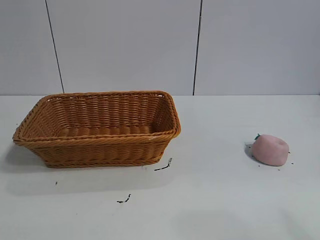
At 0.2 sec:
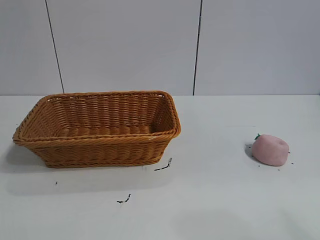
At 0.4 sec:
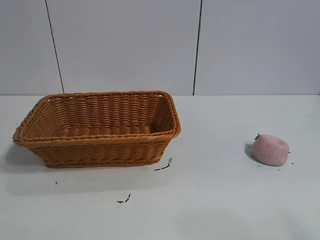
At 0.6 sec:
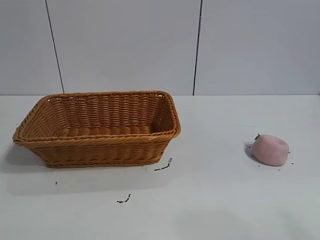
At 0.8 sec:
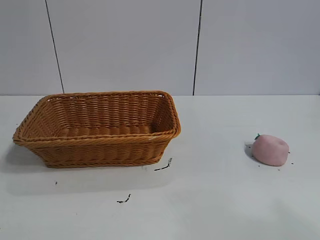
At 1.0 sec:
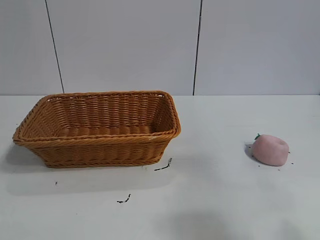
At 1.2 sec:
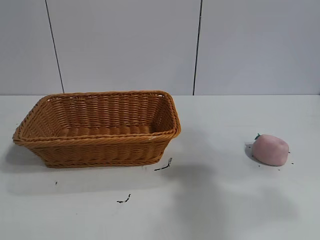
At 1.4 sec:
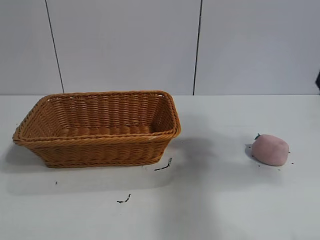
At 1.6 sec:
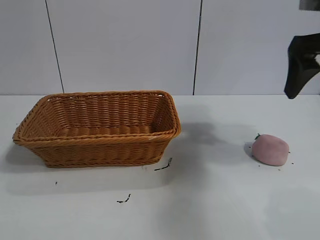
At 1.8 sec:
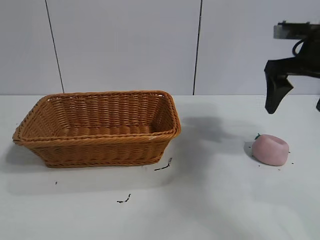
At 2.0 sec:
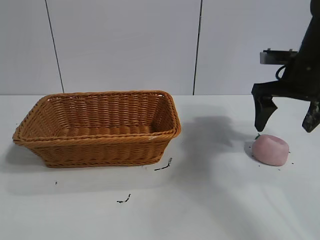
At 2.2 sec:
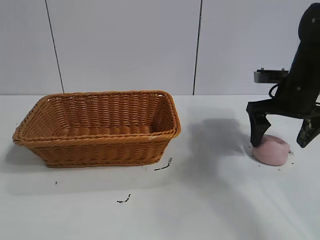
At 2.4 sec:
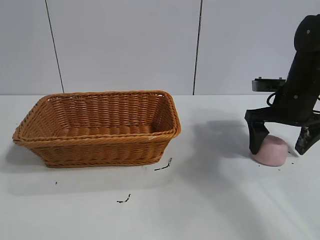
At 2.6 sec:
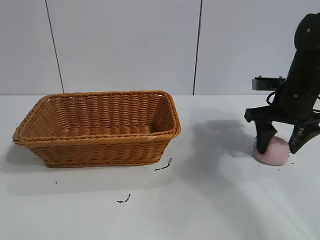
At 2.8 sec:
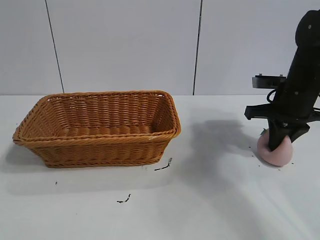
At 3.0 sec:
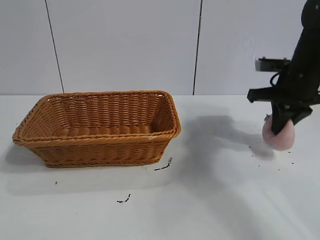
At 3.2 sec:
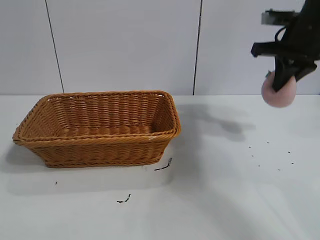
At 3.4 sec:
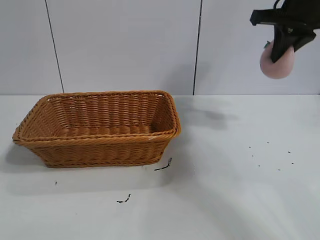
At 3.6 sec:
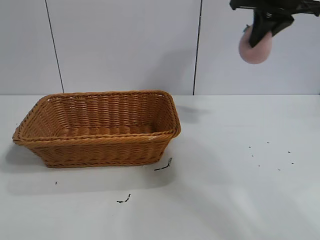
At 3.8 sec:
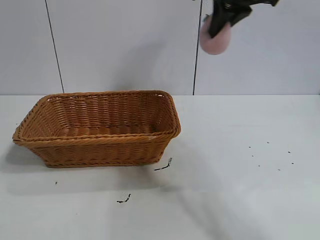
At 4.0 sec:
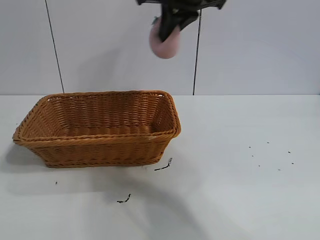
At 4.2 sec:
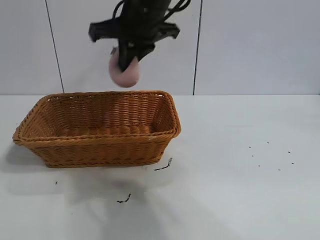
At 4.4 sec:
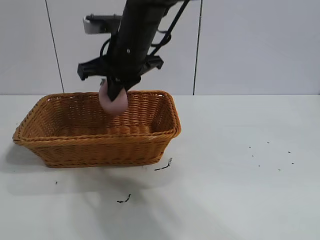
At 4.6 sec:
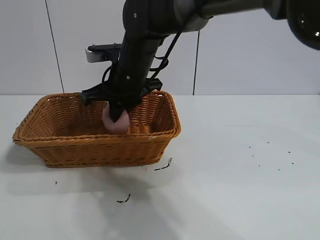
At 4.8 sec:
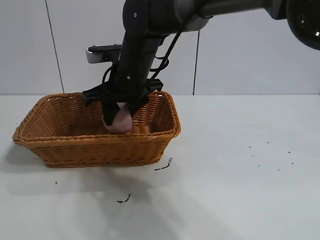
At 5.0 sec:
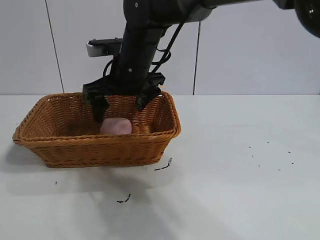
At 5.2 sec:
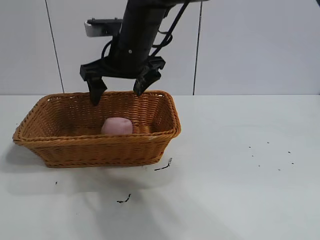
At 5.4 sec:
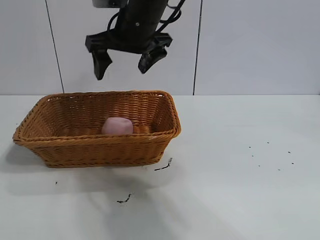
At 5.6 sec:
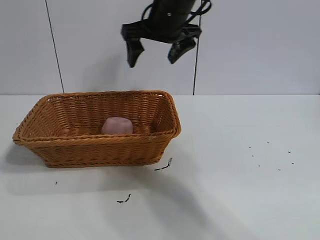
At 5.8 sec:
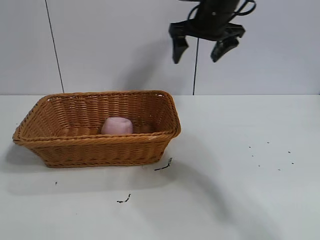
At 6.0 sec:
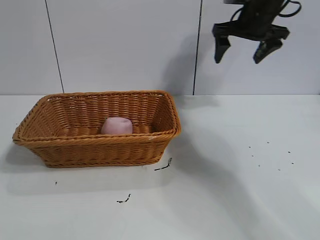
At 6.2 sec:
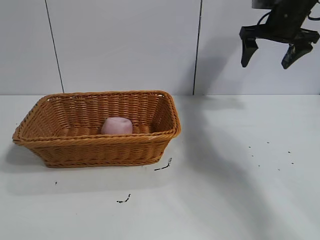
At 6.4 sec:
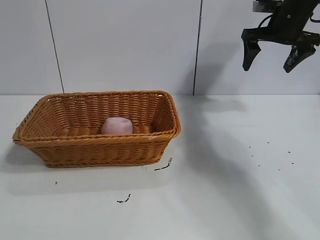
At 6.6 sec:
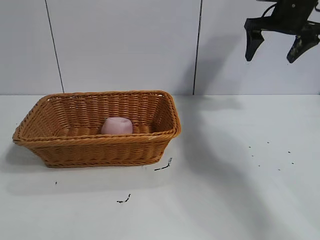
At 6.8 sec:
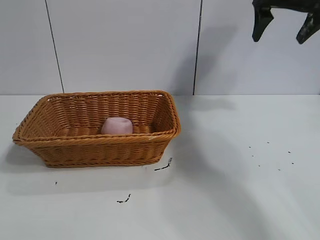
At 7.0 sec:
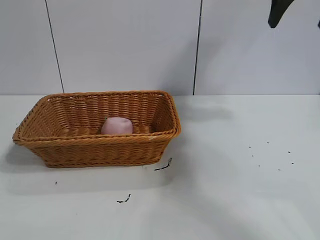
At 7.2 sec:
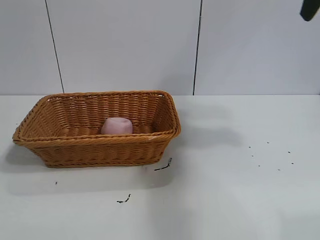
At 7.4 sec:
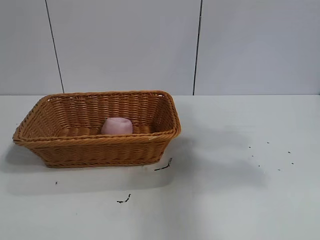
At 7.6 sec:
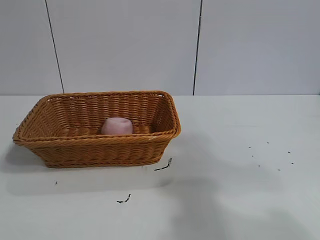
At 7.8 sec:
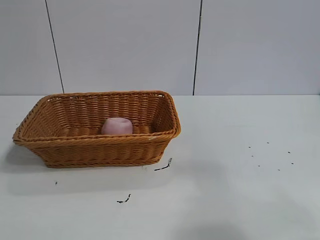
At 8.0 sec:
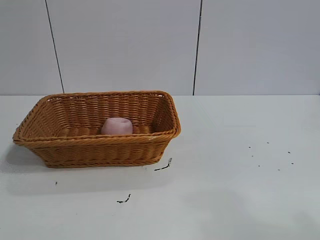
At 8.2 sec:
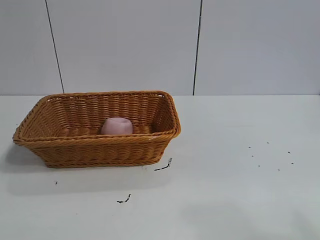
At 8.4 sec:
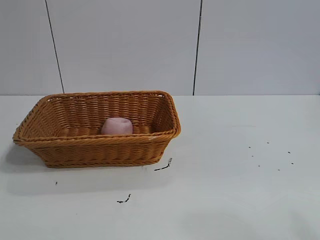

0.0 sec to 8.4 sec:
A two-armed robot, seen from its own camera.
Task of the whole recording: pick up the peach and put it into the basket.
Step, 0.8 sec to 2.6 sec: Grasp the peach with right gripper.
Step, 3.0 sec to 4.8 sec: Place the peach in the basket with right gripper.

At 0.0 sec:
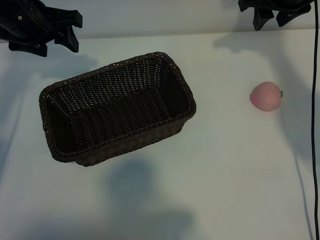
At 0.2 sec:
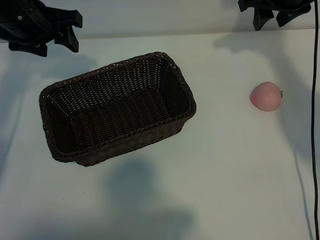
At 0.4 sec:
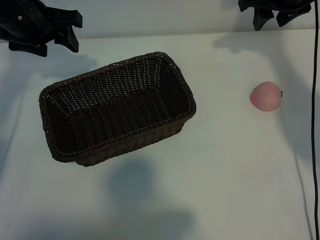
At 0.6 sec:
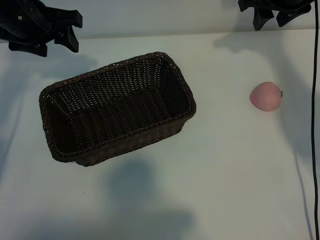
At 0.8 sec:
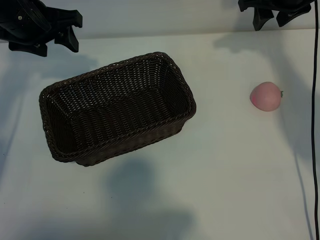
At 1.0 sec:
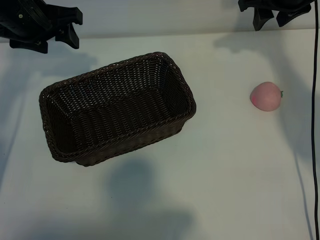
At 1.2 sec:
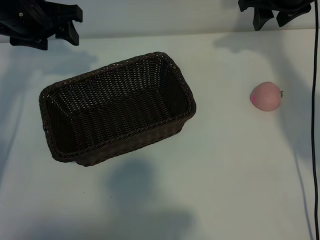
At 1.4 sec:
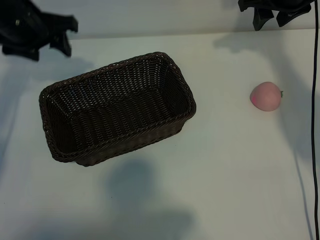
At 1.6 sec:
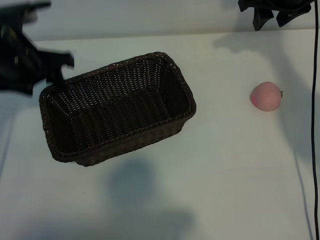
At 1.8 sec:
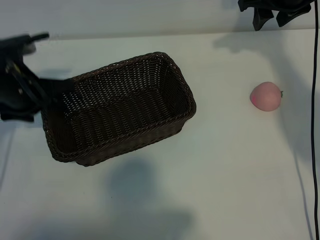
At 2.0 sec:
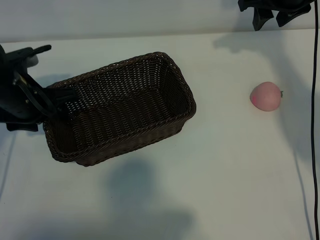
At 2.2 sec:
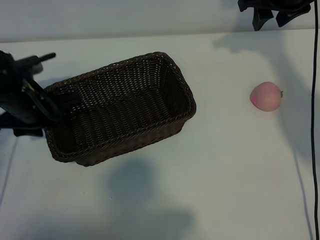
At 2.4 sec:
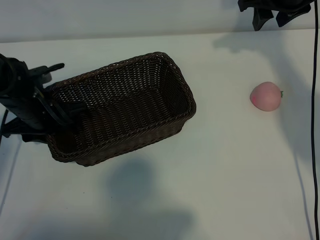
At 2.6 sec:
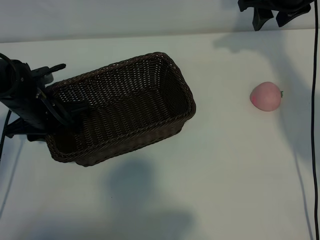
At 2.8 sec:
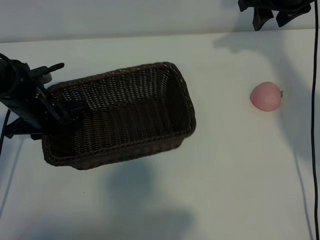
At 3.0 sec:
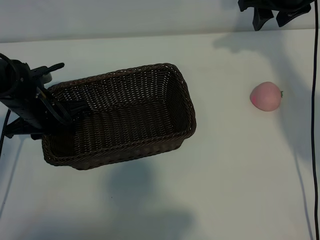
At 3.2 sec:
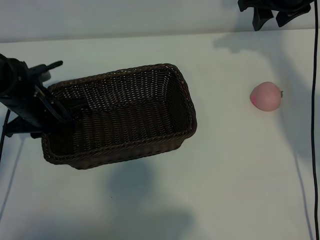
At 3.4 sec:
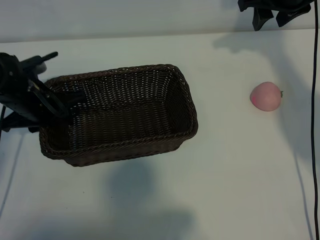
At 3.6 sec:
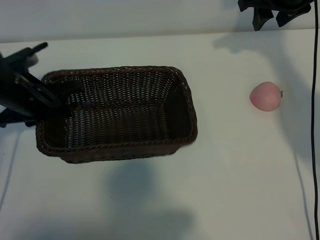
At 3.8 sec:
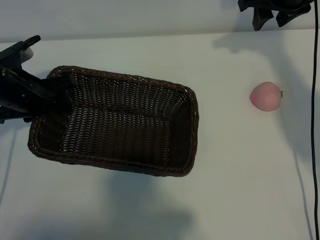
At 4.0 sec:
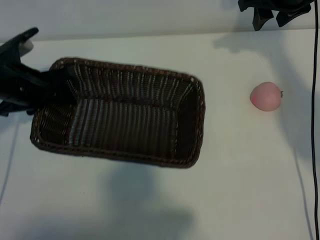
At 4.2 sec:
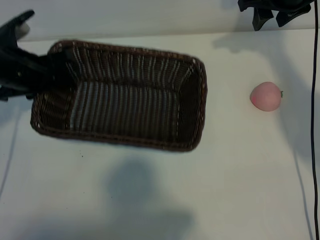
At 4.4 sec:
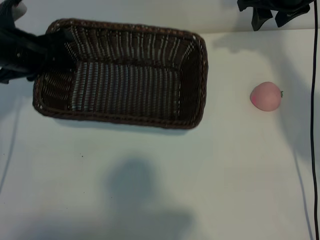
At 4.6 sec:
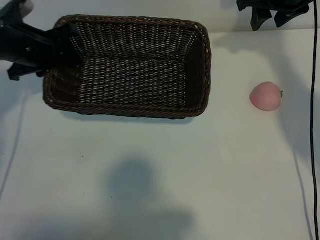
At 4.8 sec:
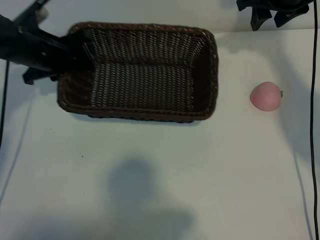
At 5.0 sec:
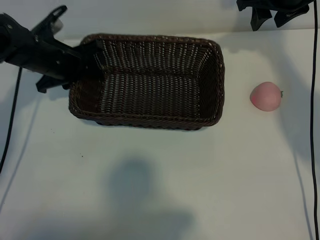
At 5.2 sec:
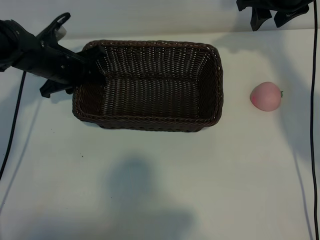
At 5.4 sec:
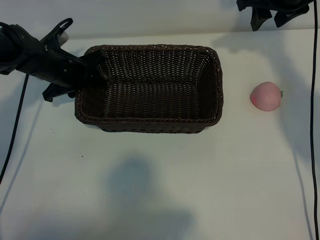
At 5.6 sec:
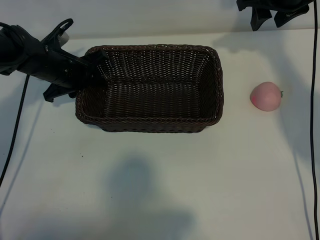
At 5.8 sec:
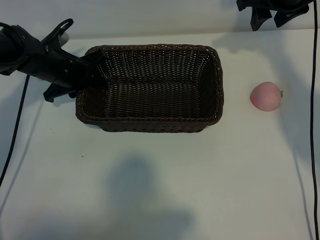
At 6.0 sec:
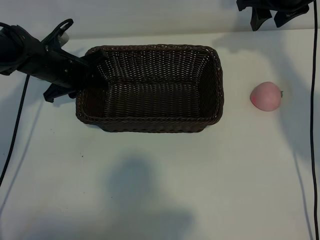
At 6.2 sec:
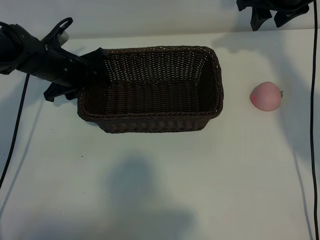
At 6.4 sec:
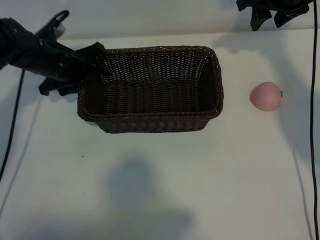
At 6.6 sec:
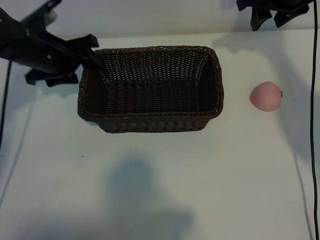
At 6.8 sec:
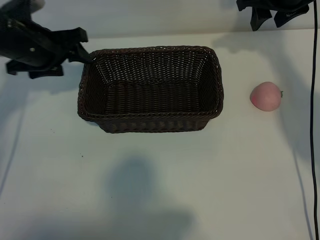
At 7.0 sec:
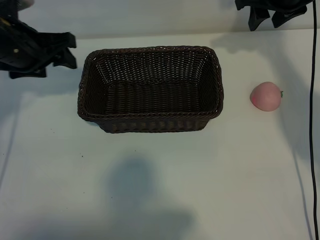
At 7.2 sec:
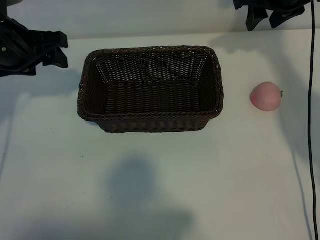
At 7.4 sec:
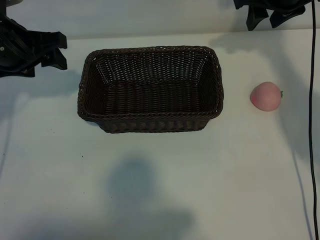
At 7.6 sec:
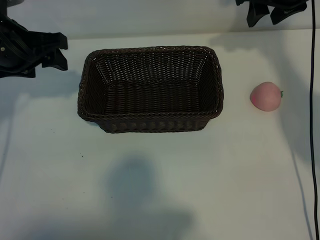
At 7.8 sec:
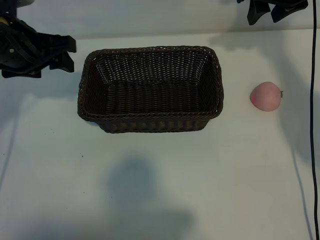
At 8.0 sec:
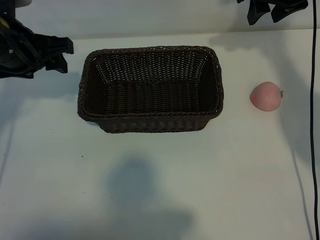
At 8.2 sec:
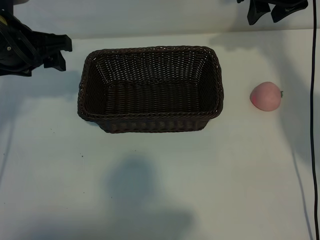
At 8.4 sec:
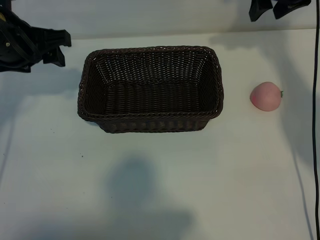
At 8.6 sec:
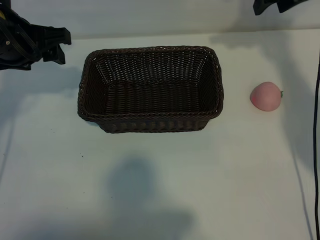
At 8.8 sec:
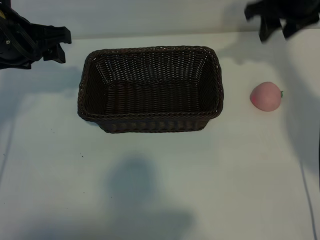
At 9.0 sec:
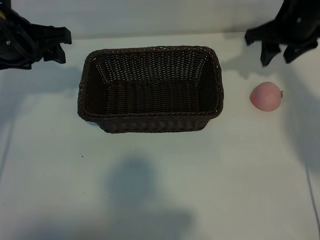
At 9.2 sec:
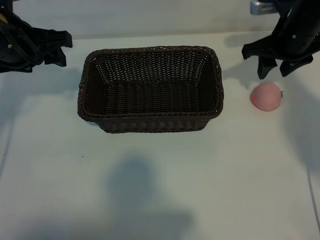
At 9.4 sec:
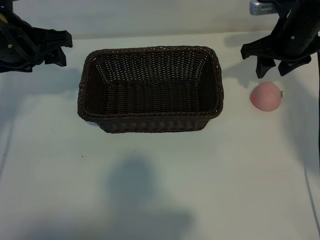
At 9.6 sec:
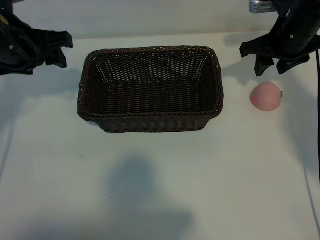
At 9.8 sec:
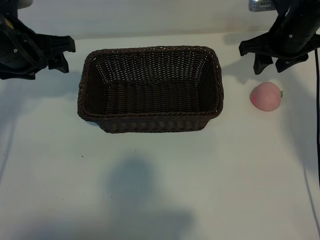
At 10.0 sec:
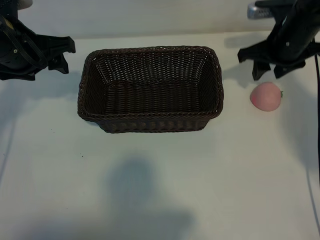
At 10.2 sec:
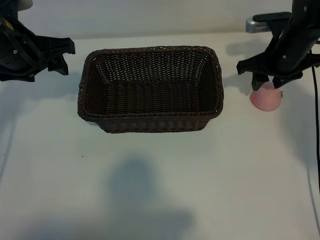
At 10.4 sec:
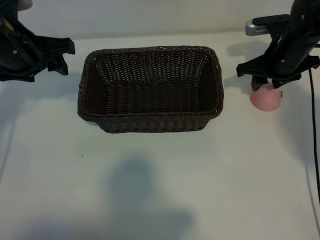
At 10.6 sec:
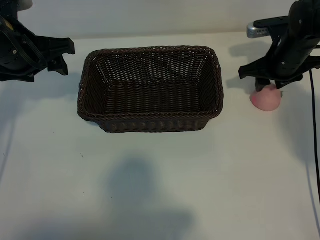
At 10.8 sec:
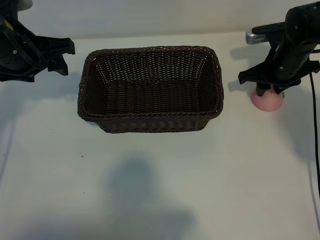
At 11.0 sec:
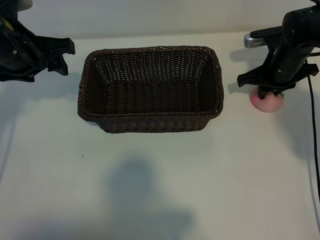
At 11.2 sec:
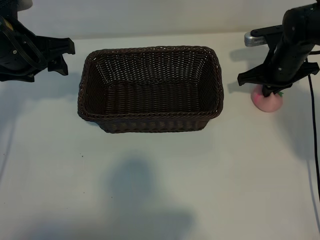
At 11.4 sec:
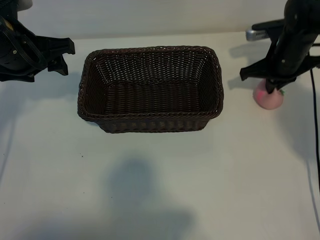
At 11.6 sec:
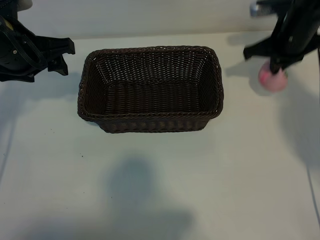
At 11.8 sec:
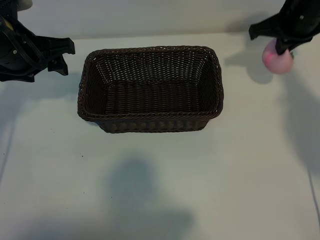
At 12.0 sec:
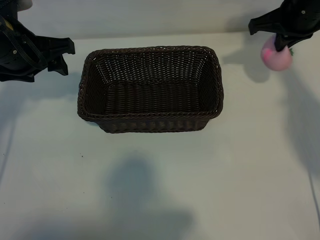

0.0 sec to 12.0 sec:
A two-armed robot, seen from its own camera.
Task of the whole recording: pick up the peach and put it into the basket.
Step, 1.0 sec to 2.8 sec: Grasp the basket with left gripper.
Step, 3.2 sec to 6.4 sec: Place the basket in the center of view with left gripper.
Step, 6.6 sec to 11.2 sec: Grasp the peach with right gripper.

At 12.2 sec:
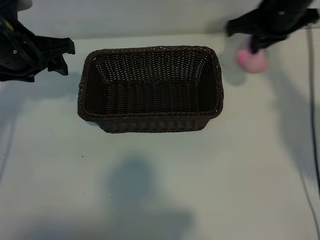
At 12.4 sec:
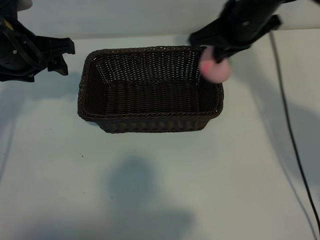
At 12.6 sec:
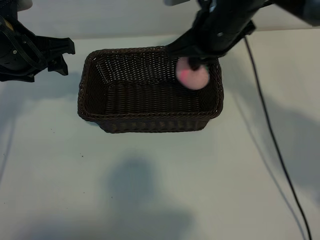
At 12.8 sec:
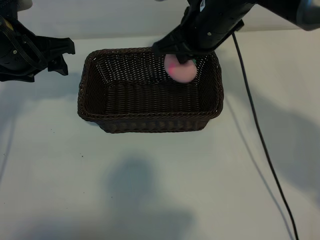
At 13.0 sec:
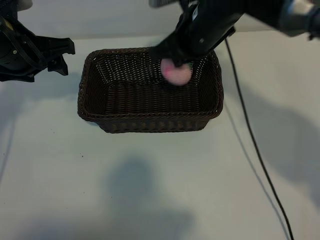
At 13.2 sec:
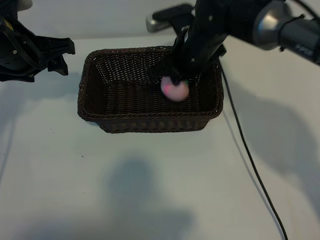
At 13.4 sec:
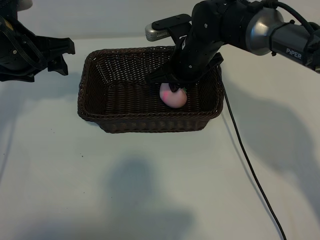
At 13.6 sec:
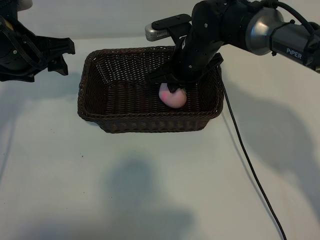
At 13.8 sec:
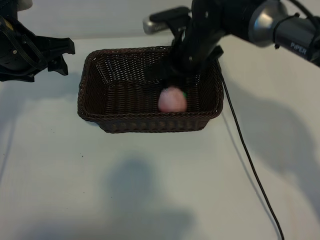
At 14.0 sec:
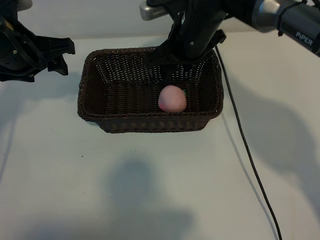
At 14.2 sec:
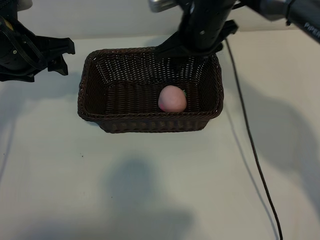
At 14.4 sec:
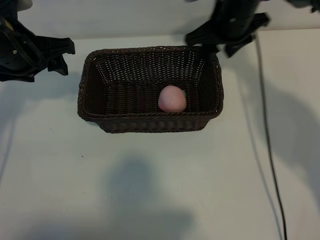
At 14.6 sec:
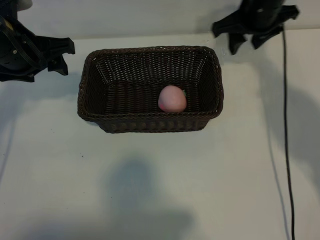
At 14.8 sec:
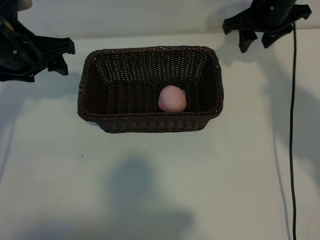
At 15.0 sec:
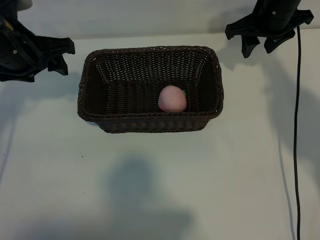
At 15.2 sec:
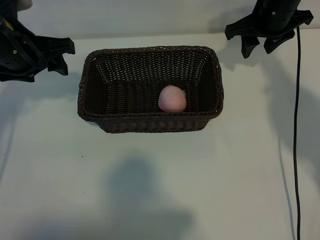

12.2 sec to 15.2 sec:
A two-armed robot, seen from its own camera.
Task of the whole recording: pick up the peach and put it into the basket.
Step, 12.2 sec to 13.8 sec: Place the peach in the basket with right gripper.
